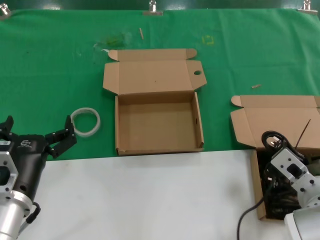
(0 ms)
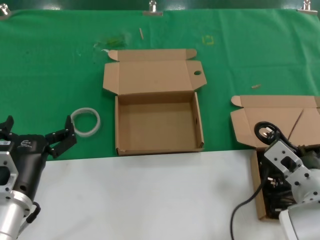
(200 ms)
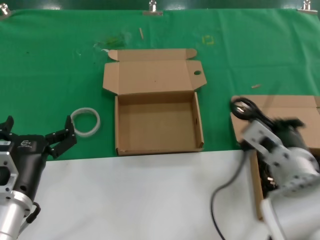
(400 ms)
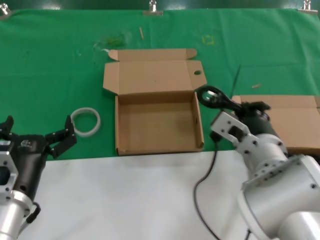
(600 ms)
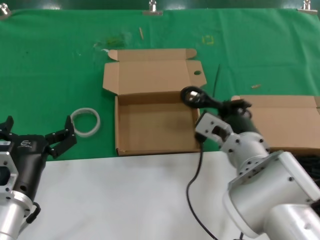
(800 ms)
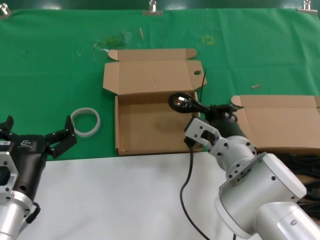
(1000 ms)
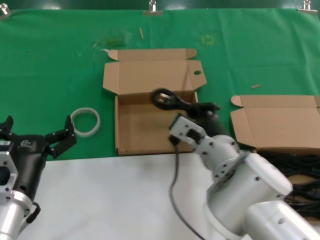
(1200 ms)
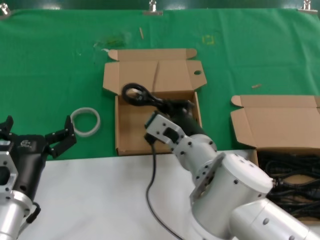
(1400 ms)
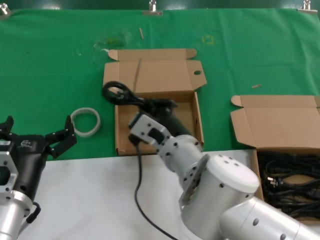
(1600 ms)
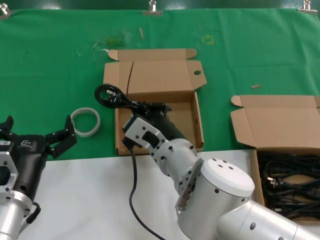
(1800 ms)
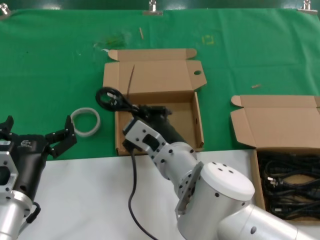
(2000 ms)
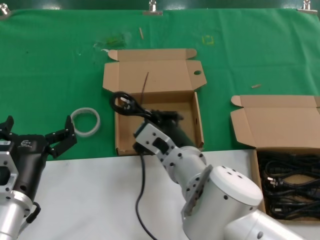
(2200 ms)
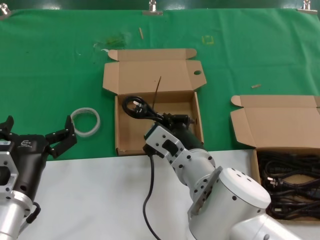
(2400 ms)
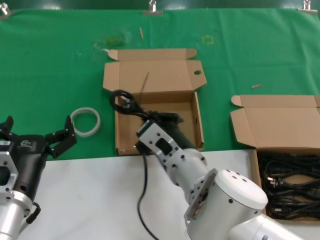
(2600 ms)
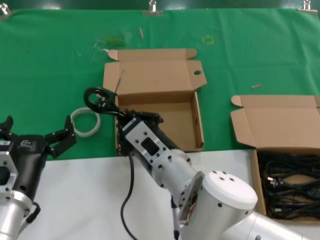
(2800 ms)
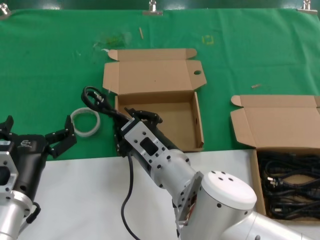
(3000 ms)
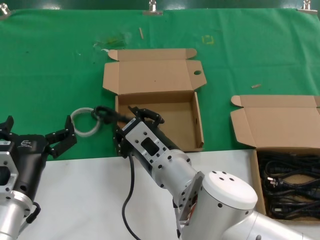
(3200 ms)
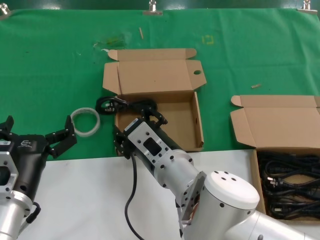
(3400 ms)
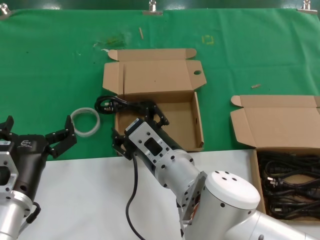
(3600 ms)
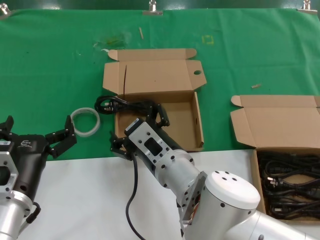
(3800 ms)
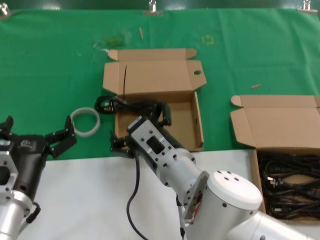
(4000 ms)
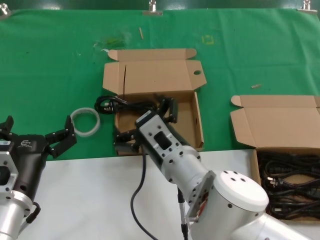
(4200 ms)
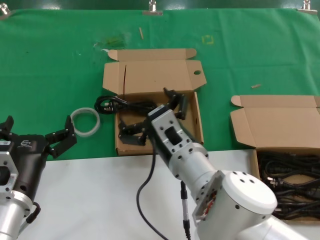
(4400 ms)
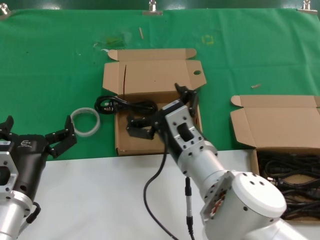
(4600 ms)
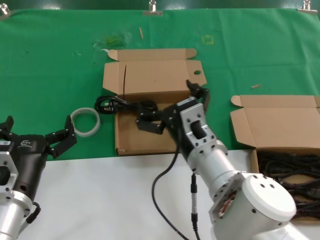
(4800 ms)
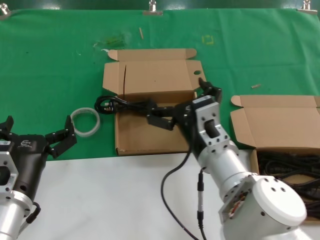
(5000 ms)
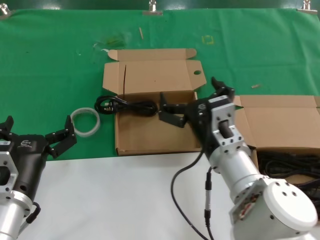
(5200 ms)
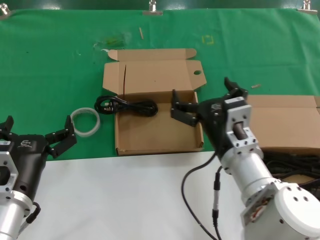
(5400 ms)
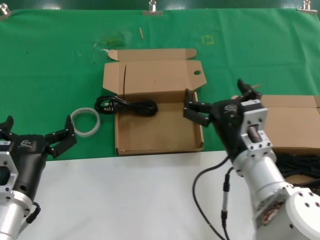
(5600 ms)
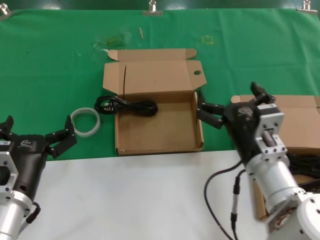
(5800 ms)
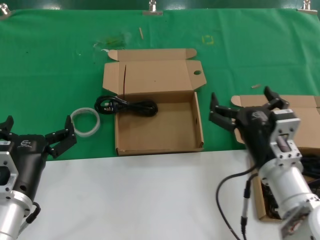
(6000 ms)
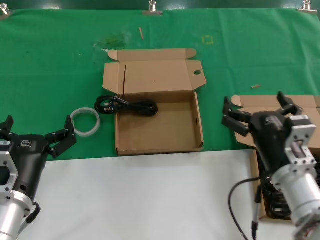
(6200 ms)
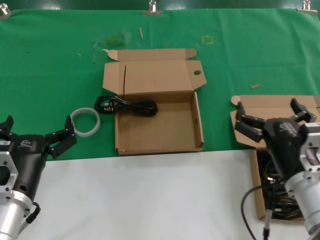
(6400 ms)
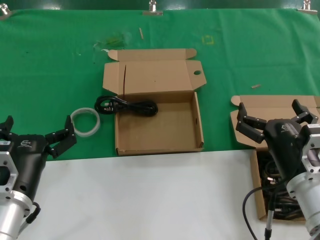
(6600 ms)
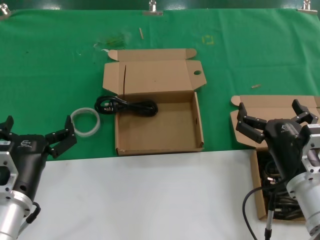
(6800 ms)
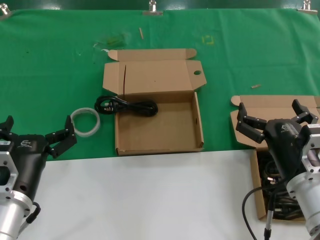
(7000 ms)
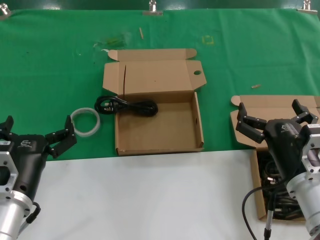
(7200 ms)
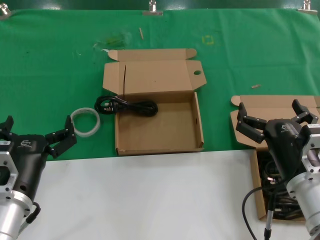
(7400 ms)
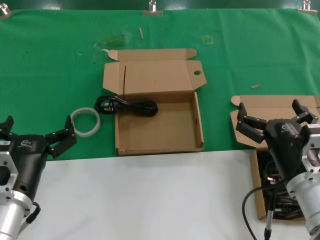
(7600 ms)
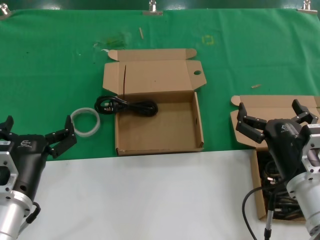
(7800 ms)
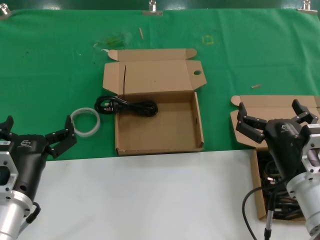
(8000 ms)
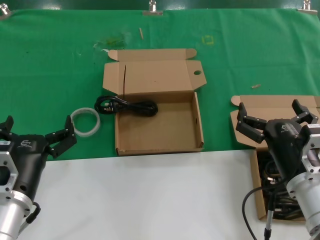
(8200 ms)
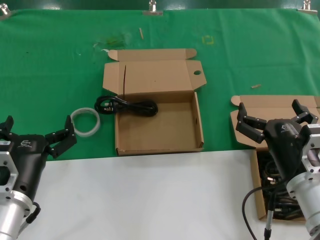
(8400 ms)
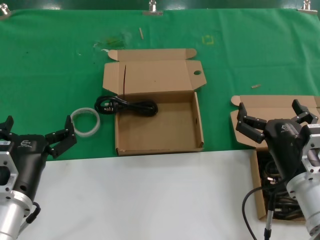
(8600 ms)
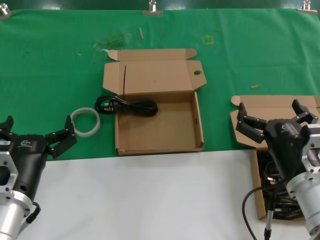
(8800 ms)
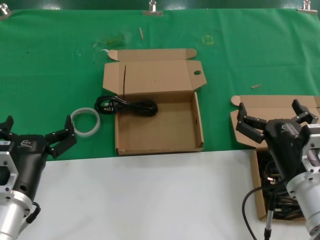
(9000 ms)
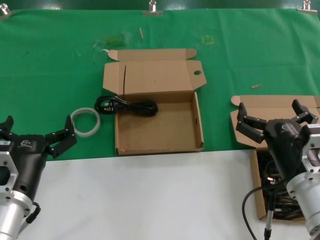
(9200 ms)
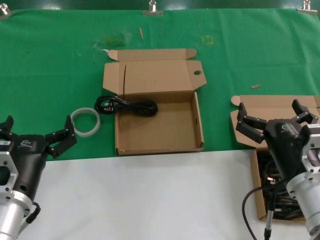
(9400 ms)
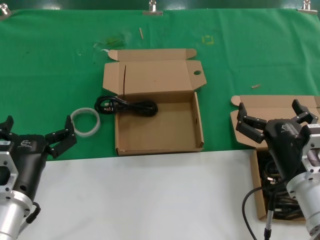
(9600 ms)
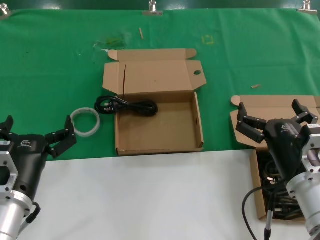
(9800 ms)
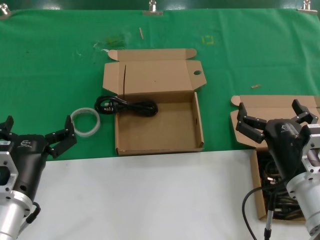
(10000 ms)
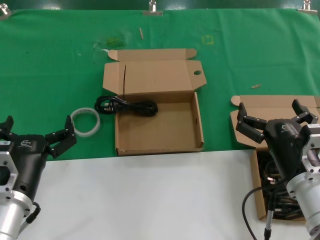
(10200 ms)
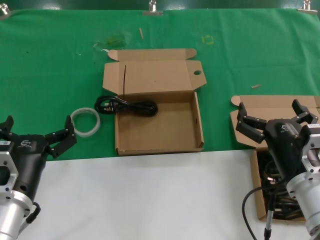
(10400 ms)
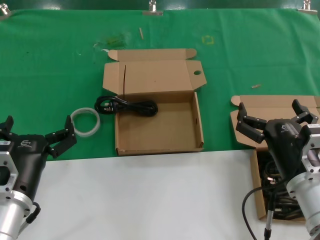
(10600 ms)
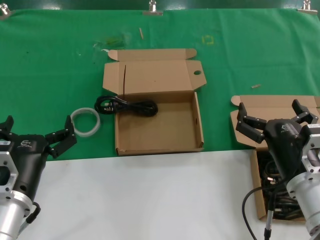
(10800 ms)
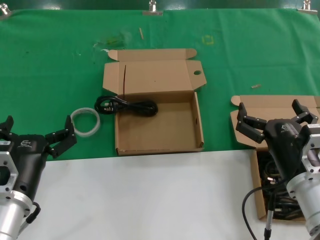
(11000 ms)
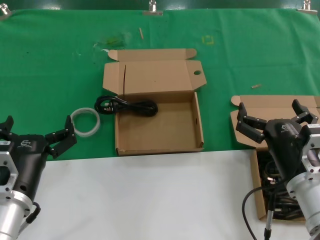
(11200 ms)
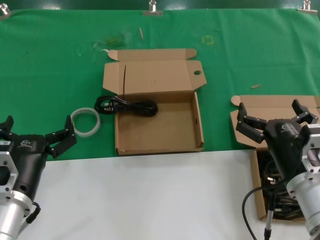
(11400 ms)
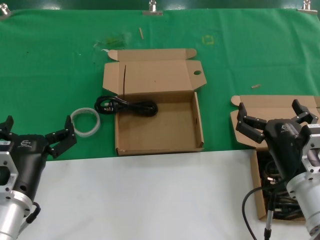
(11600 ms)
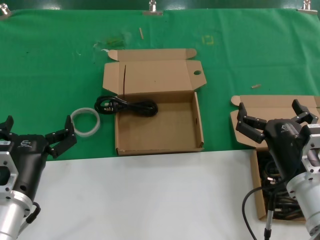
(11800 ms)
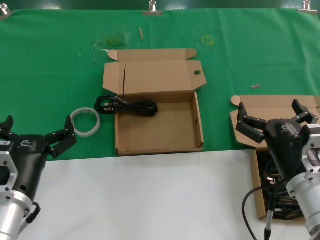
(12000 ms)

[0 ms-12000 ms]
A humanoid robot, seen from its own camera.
Task of the whole recording: take the parts from the box containing them and put them into an empty box.
Step, 0 ms to 3400 ms: Place the data cable in the another box.
0 ms to 1600 ms: The right hand shifts some 20 cm to the left.
1600 ms to 3000 ms: The hands make only small movements.
3000 ms to 4400 ms: The hands stay close to where they were, moving slightly.
4400 ms to 6000 ms: The right hand heads to the right, covering approximately 15 cm.
6000 ms to 7600 ms: The right hand changes place by roughly 5 cm.
7600 ms to 12000 ms: Neither hand changes place.

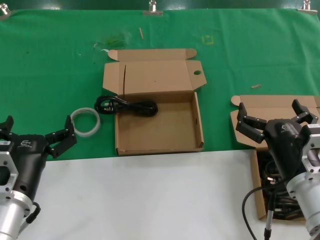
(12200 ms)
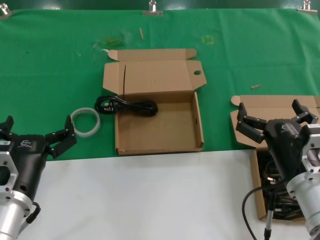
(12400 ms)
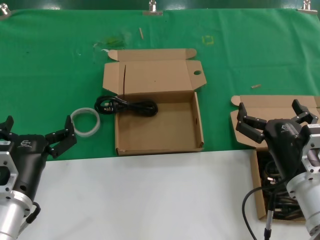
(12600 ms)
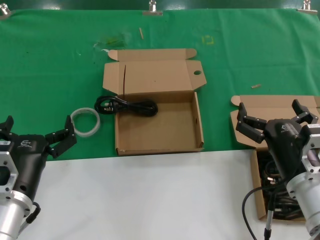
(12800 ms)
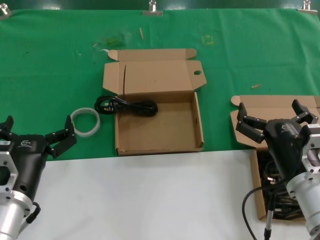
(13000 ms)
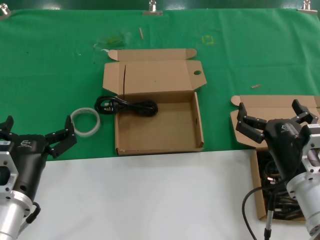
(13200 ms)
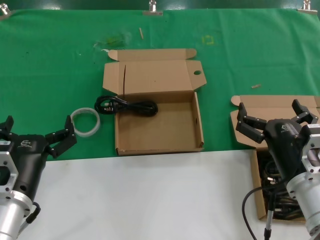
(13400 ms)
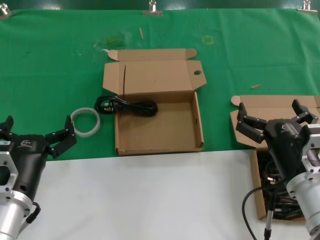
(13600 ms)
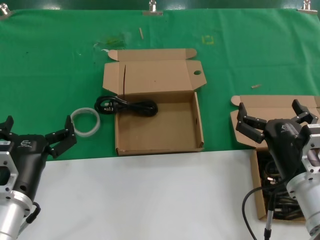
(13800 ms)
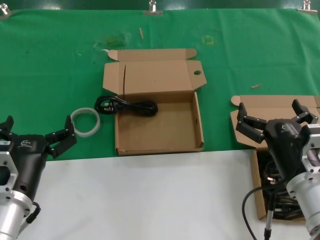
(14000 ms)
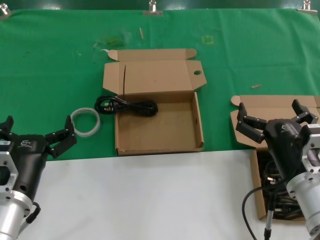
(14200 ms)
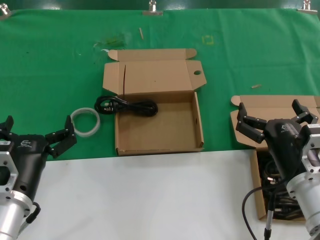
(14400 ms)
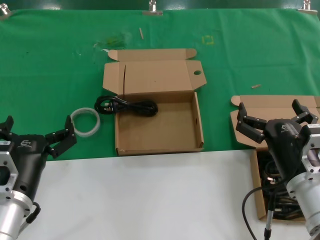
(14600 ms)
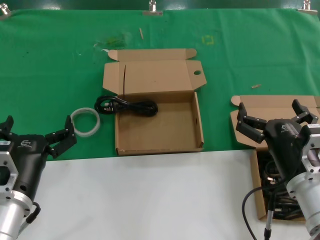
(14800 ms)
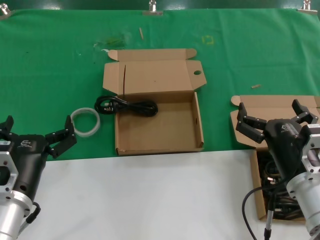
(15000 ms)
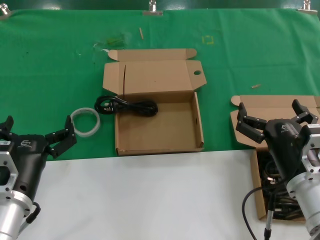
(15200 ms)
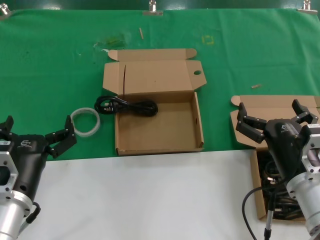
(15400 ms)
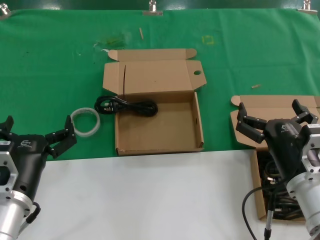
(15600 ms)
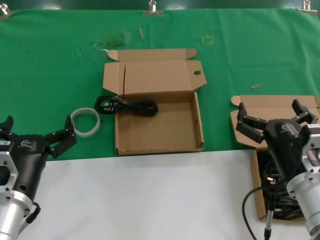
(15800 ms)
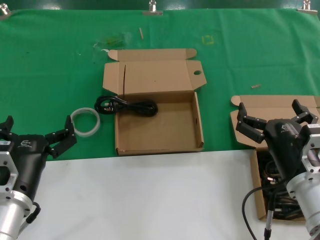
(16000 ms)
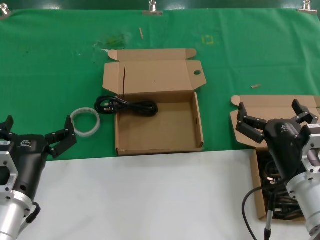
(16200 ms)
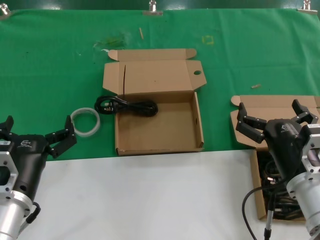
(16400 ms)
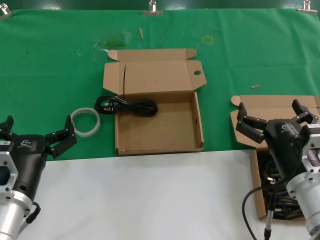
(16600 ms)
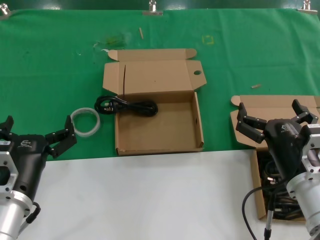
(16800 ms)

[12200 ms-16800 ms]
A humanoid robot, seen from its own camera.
Task of the whole recording: take the parts from the box containing them and put them into an empty box.
12200 ms to 16800 ms: The two hands keep their place.
